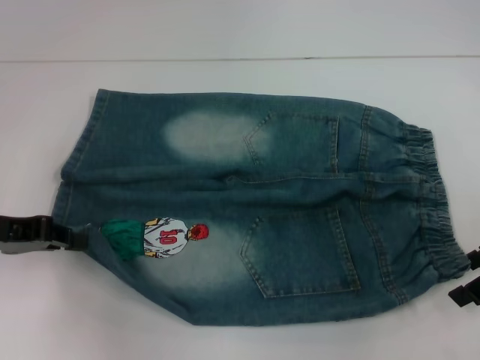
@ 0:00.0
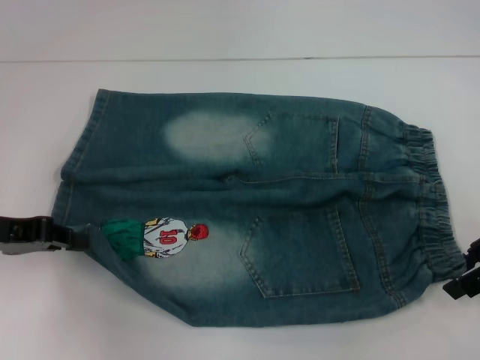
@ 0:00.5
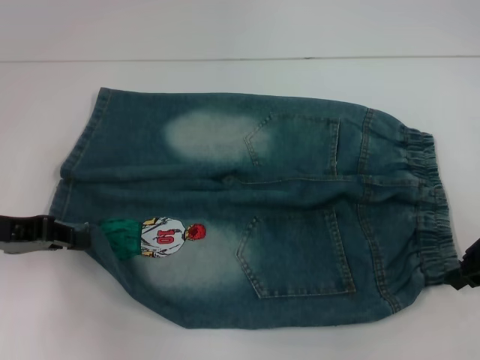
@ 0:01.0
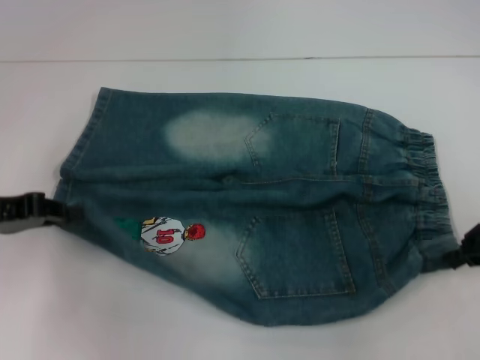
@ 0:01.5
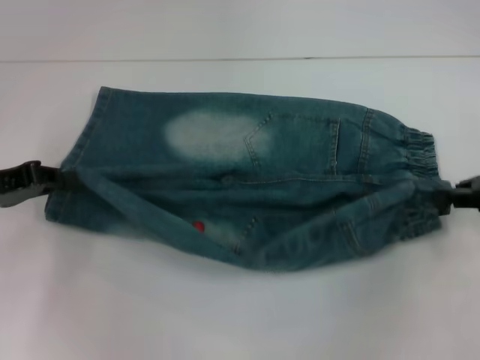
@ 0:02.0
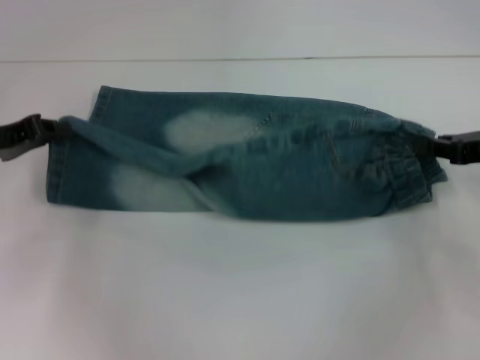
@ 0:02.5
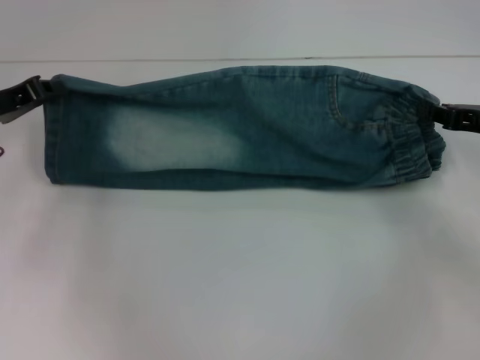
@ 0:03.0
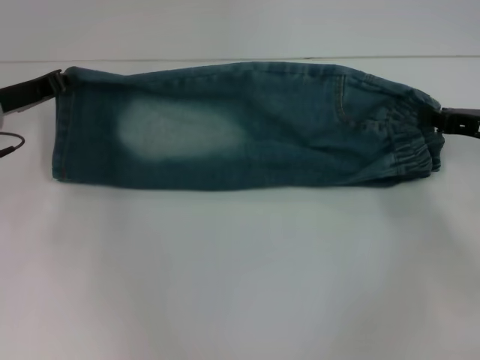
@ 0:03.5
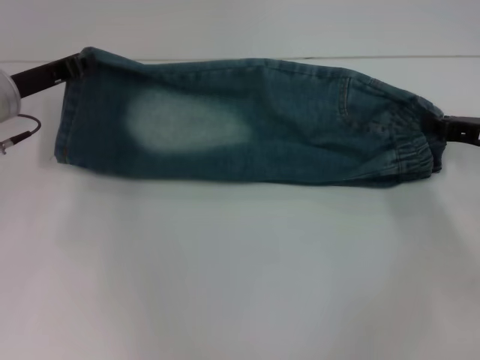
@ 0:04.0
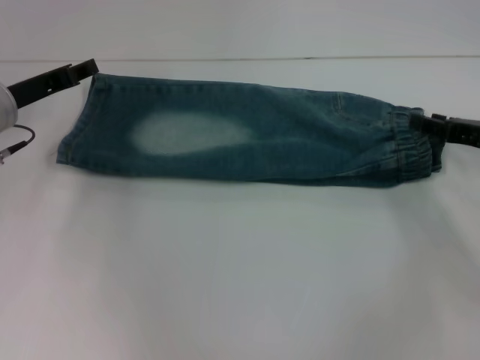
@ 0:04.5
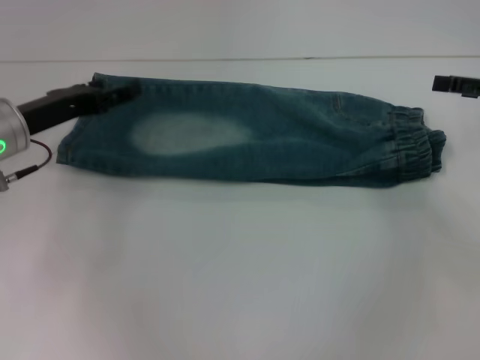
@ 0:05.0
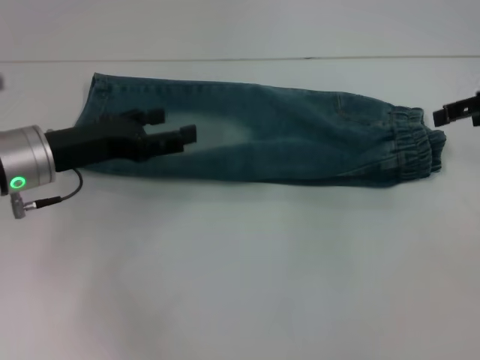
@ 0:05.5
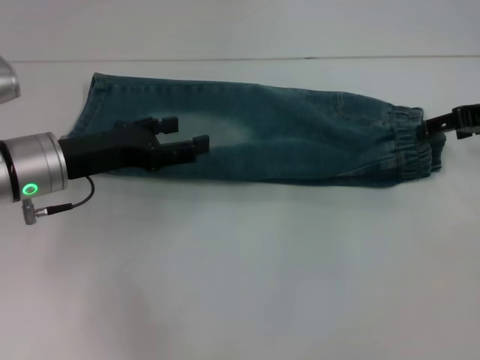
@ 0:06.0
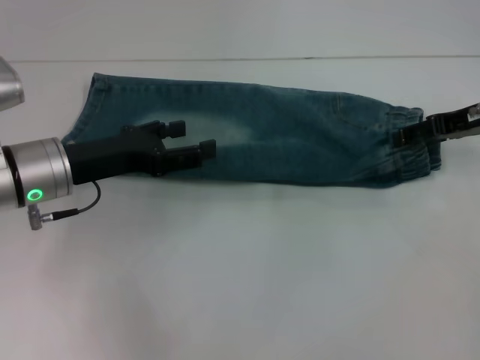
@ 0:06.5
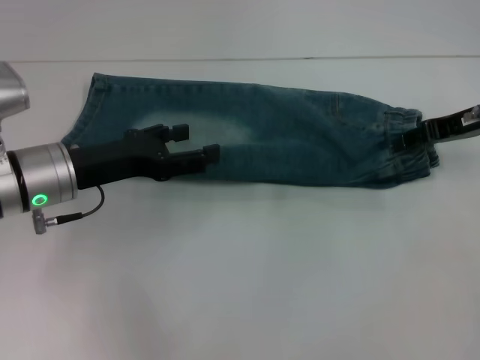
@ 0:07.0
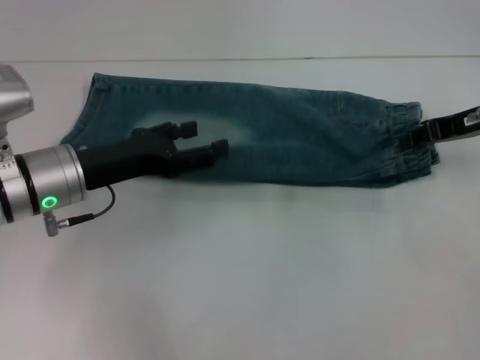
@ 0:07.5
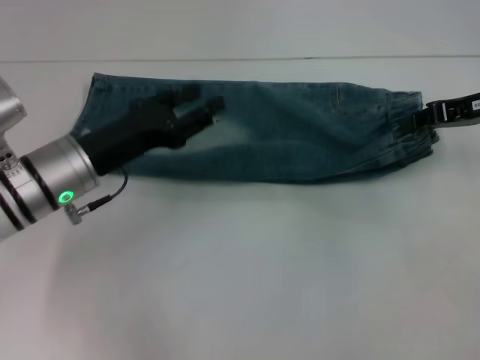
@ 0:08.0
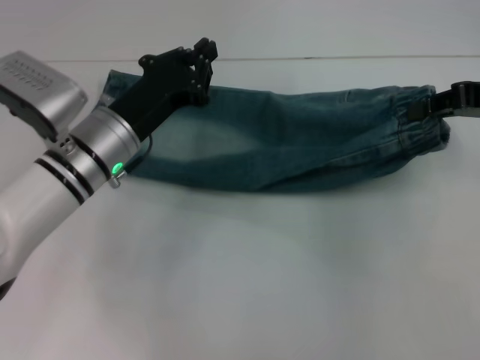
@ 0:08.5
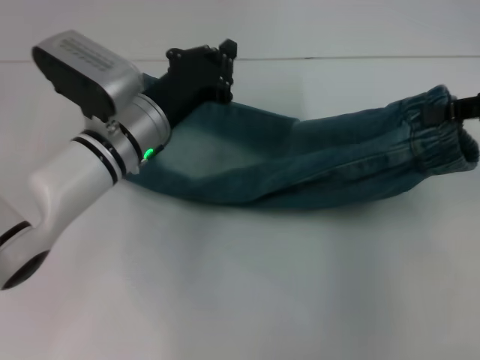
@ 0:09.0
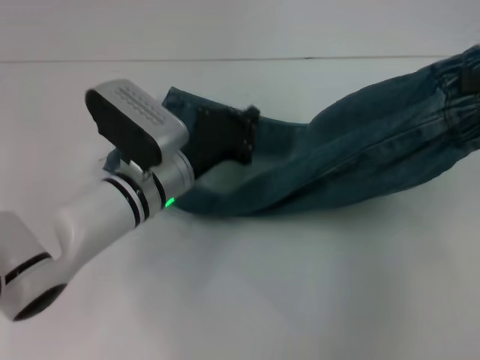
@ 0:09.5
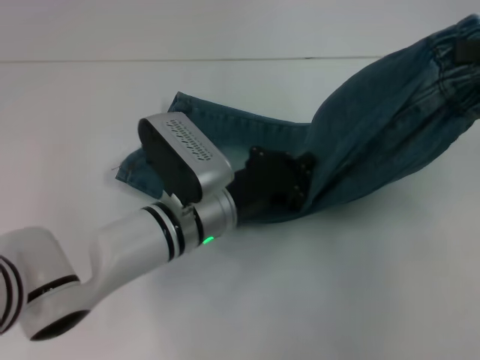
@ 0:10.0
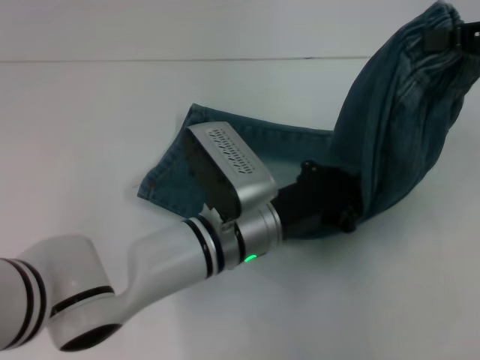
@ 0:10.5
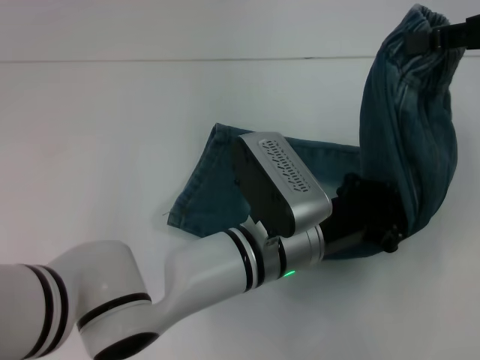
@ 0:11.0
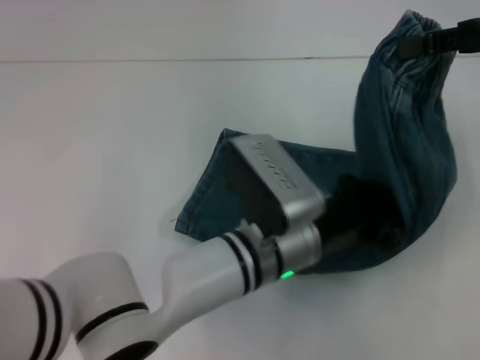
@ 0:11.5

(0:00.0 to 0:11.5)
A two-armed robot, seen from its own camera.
Step, 0:02.0 - 0:04.5: Fold upward with your right hand.
Step, 0:05.0 - 0:07.5: Grab the waistband with your right hand.
0:00.0 - 0:02.0: The right gripper closes up.
0:02.0 - 0:04.0: The left gripper is displaced forward and to the right by roughly 10 cm; the right gripper goes some 5 cm downward.
0:04.0 - 0:06.0: The left gripper is displaced backward by roughly 5 cm, and opens; the right gripper goes some 10 cm upward, and opens up.
0:06.0 - 0:07.5: The right gripper closes its fingers.
0:07.5 - 0:09.5: The right gripper heads upward, backward and to the right, covering about 15 cm; the left gripper goes roughly 10 cm to the right, and closes its fingers.
0:09.5 - 0:11.5: The right gripper shifts by about 5 cm; the left gripper heads to the right and backward, covering roughly 15 cm.

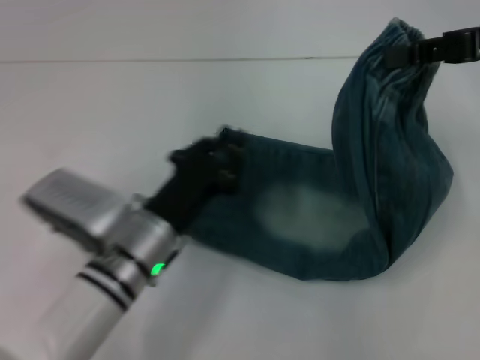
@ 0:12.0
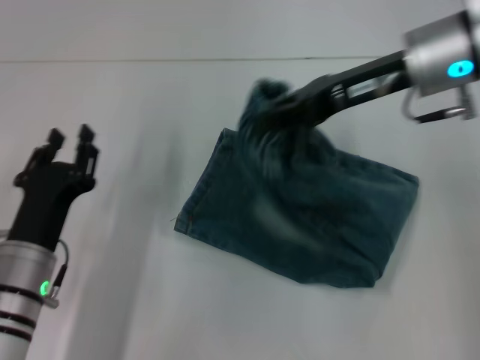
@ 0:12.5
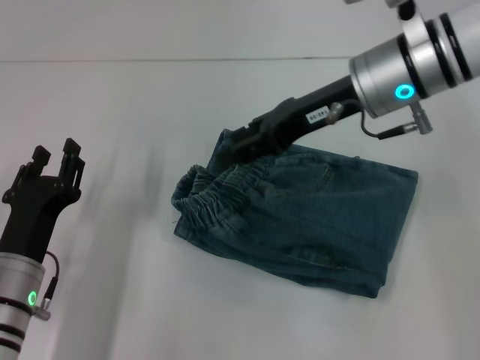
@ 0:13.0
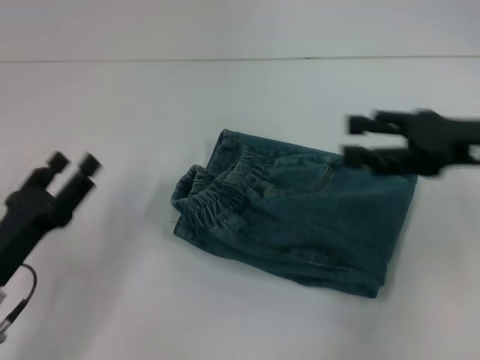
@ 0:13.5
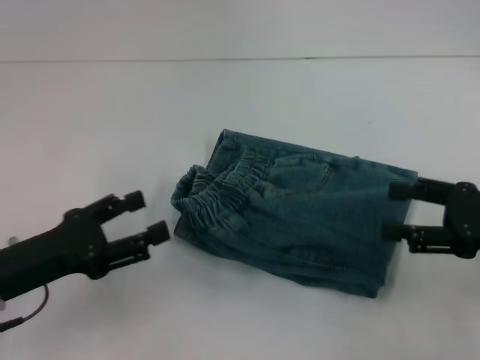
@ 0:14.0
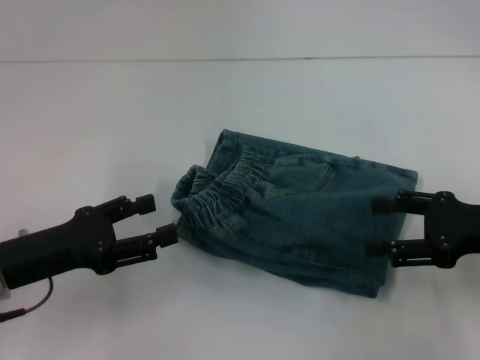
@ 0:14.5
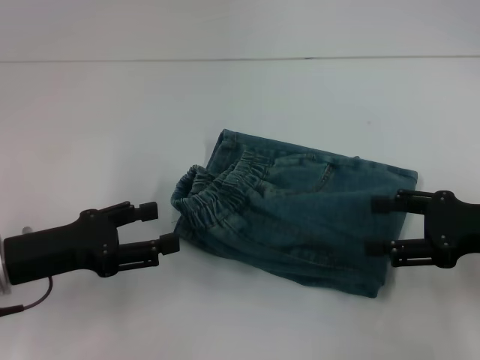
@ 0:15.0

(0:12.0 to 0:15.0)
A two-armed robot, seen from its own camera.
Step, 0:12.0 - 0:13.0: Fold to the left with your right hand.
0:12.0 - 0:13.5: The right gripper shifts about 10 cm downward and backward, goes to the left and returns, about 15 cm each way, and opens, while the left gripper is displaced to the left by roughly 15 cm, and opens up.
0:13.5 - 0:15.0: The right gripper heads downward, covering some 5 cm. The left gripper shifts by approximately 5 cm.

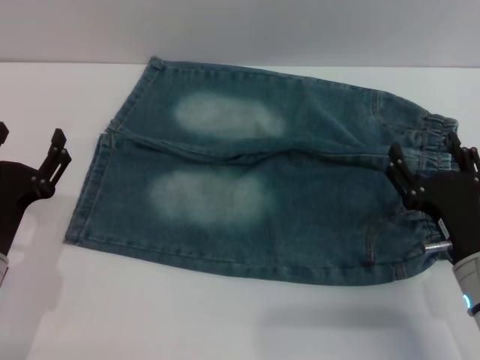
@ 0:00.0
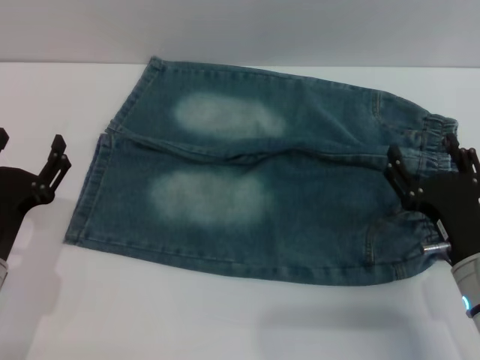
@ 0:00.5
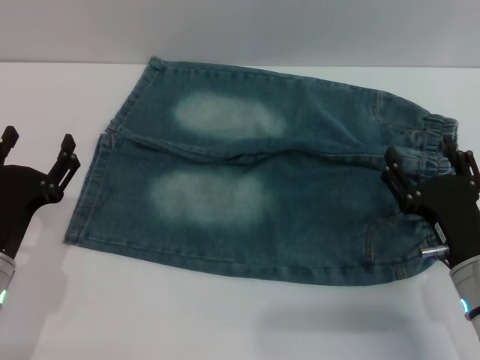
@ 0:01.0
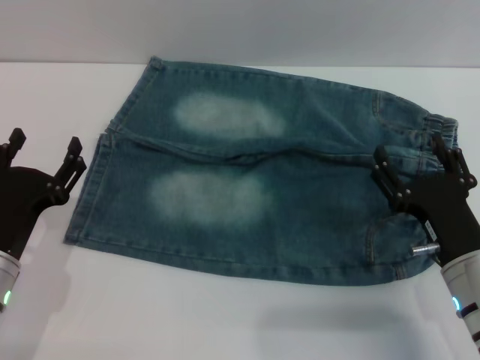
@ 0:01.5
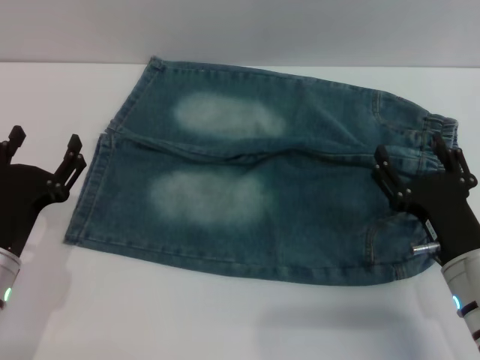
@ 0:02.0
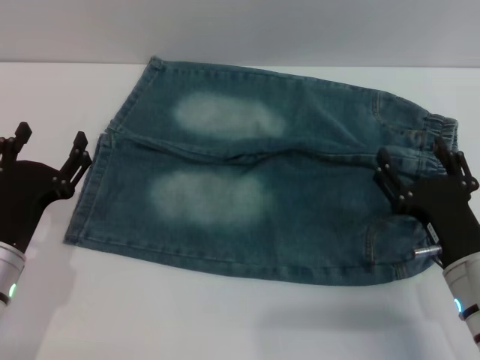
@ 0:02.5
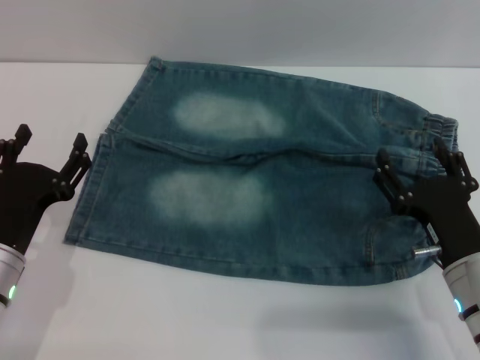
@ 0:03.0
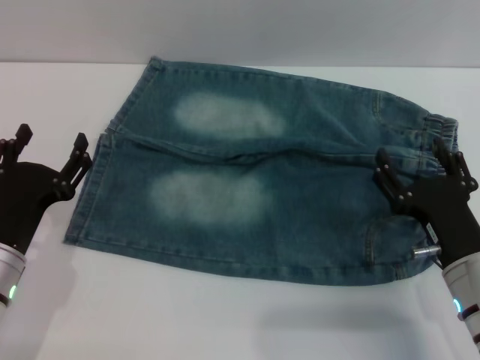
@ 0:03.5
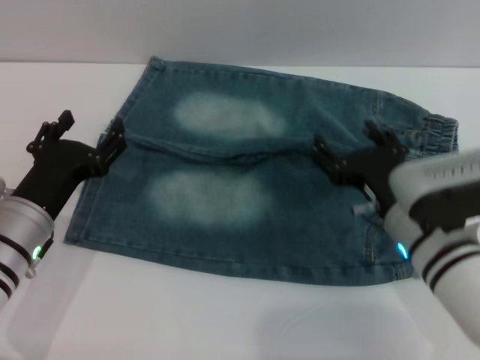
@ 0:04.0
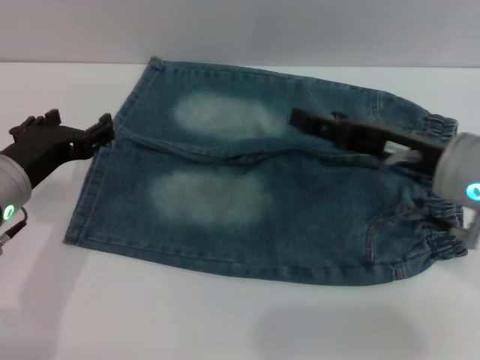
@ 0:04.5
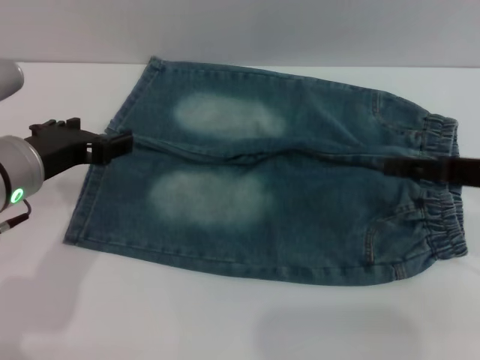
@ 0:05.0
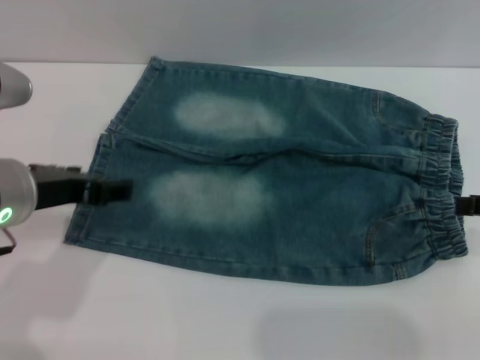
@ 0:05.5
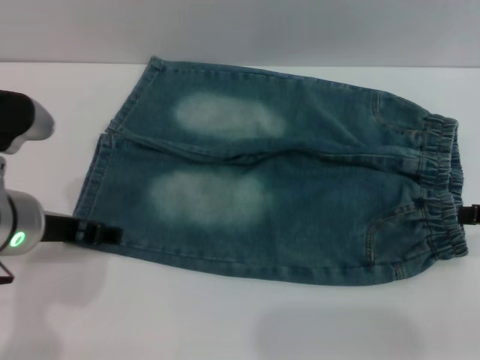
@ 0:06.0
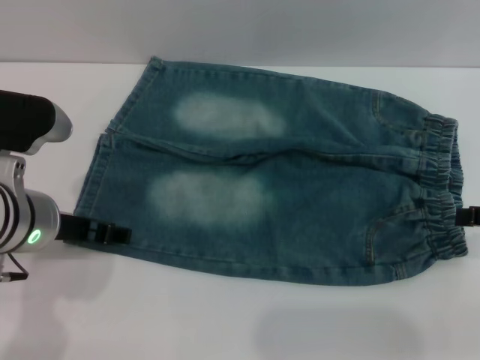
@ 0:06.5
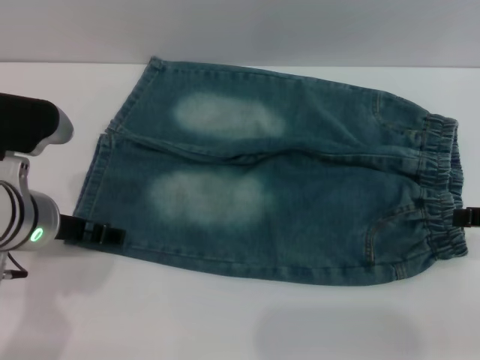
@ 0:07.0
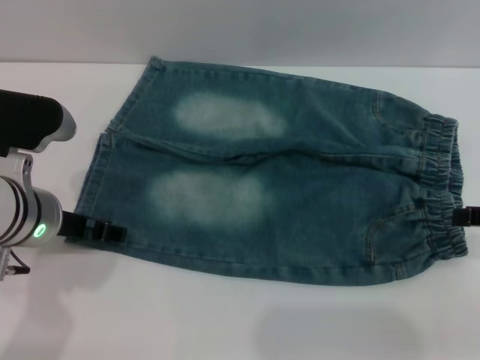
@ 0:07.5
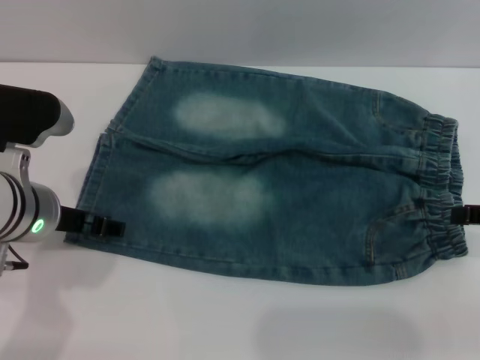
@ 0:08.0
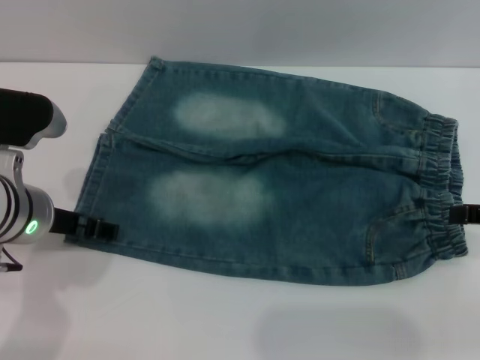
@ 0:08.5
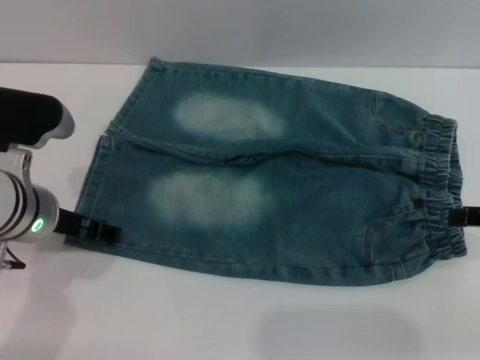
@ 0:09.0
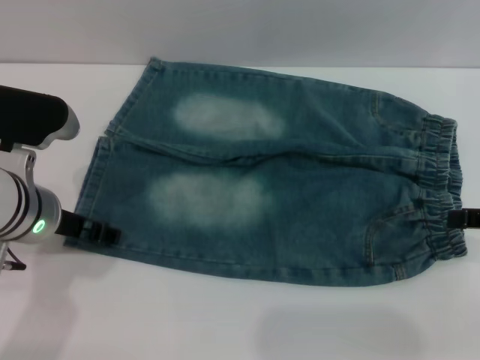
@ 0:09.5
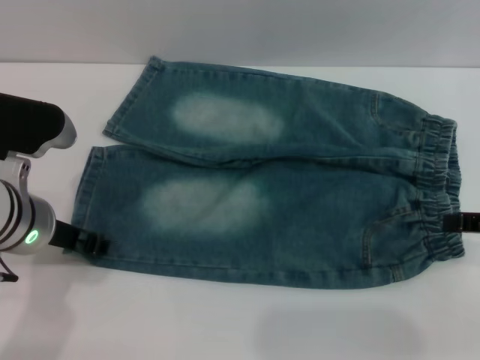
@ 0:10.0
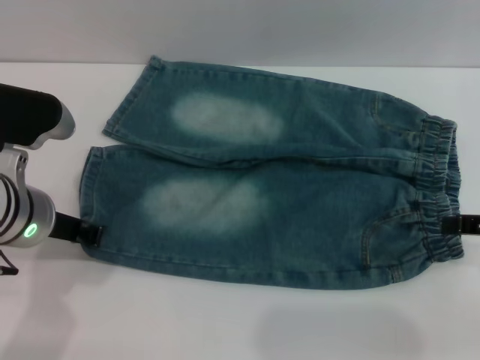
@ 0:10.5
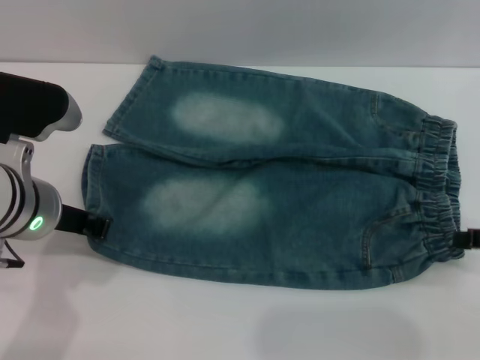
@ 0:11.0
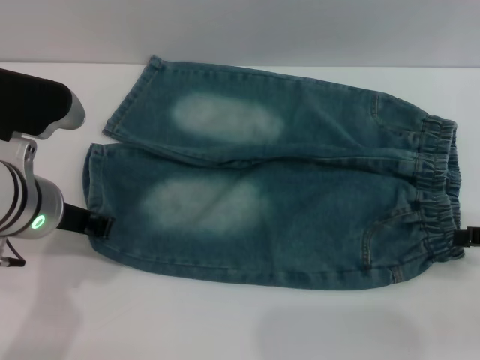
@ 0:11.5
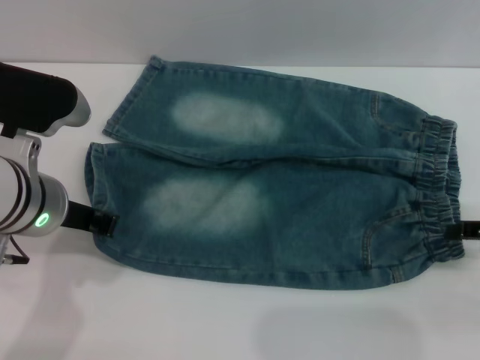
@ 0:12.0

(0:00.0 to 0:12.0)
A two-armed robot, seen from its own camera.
0:00.0 - 0:02.0: Neither gripper changes place.
0:02.0 - 0:04.0: The right gripper moves roughly 10 cm, while the left gripper shifts by roughly 5 cm.
0:04.0 - 0:06.0: The right gripper goes about 20 cm to the right and upward, while the left gripper is displaced upward by roughly 10 cm.
0:06.0 - 0:10.0: The grippers move only a little.
0:10.0 - 0:12.0: The left gripper closes its fingers. The right gripper moves downward, some 5 cm.
